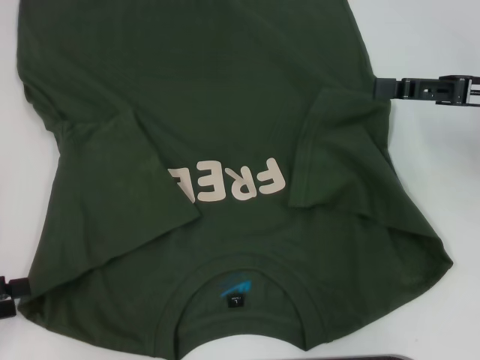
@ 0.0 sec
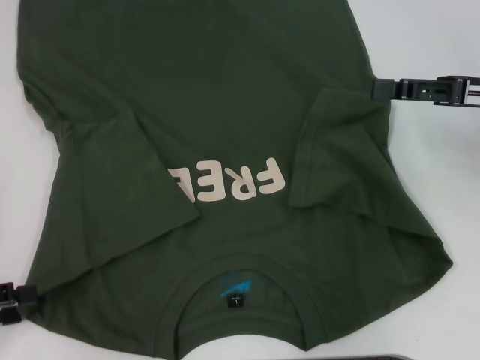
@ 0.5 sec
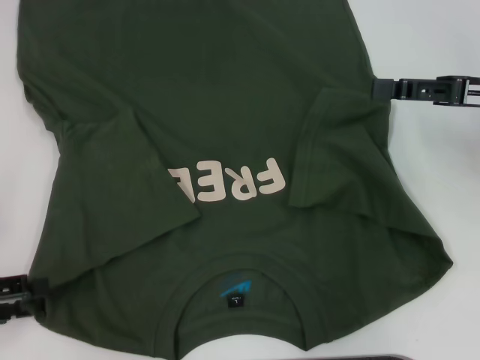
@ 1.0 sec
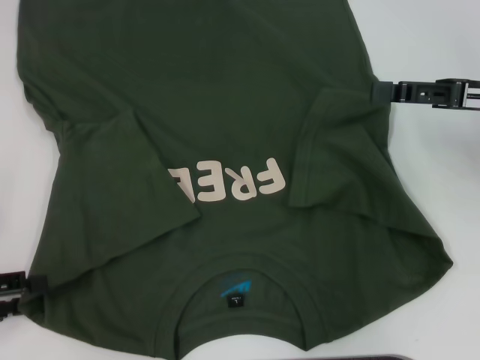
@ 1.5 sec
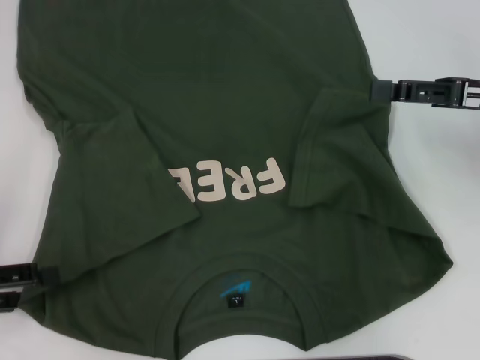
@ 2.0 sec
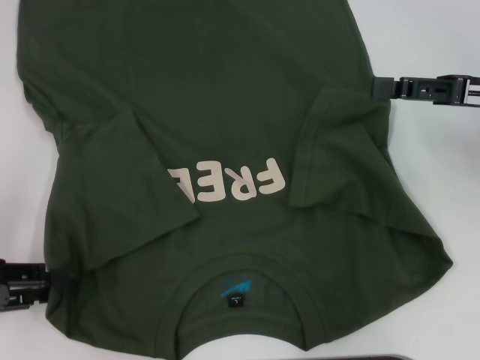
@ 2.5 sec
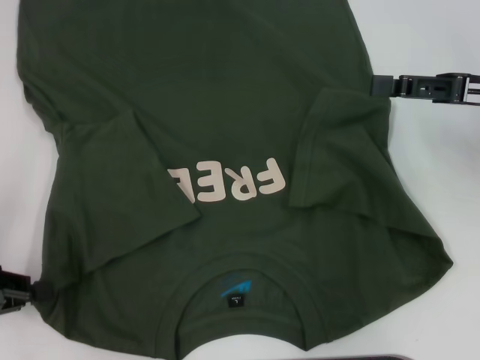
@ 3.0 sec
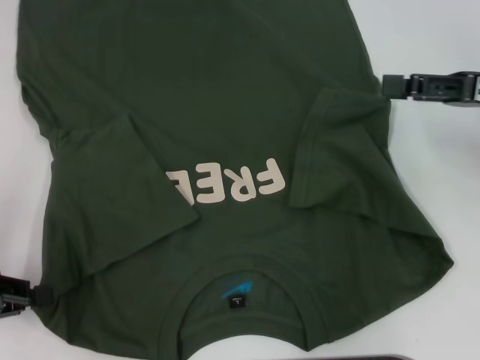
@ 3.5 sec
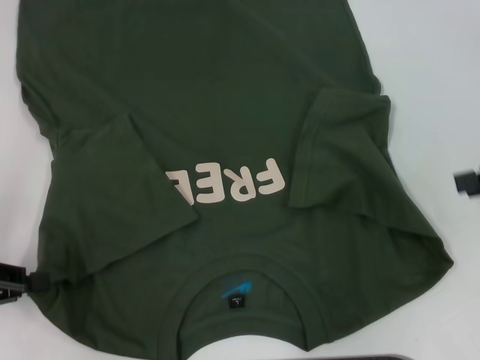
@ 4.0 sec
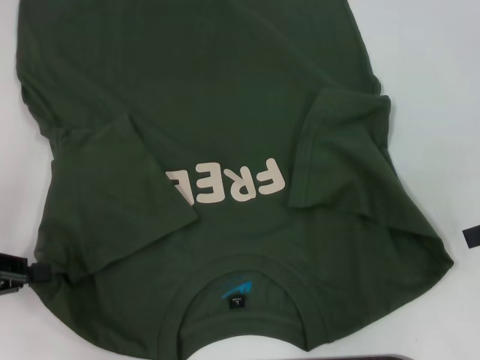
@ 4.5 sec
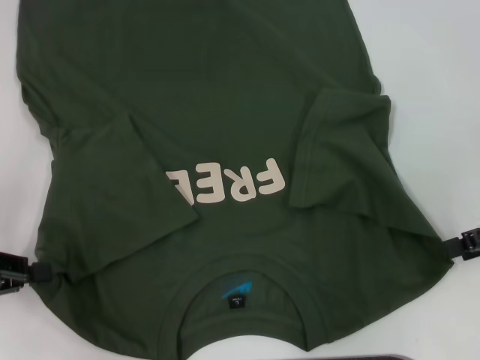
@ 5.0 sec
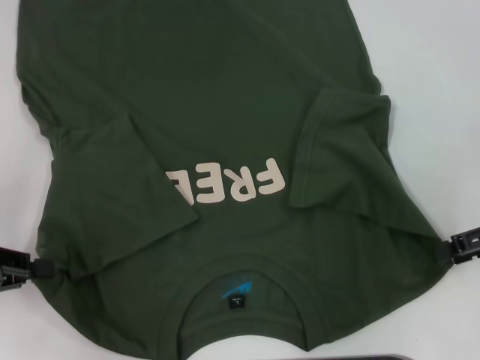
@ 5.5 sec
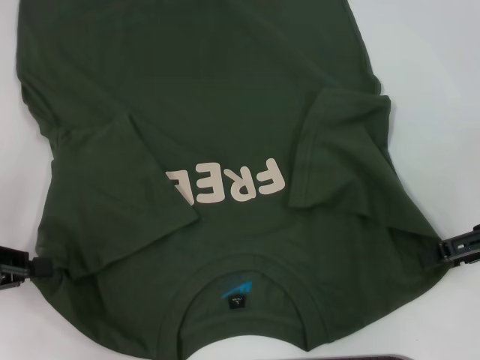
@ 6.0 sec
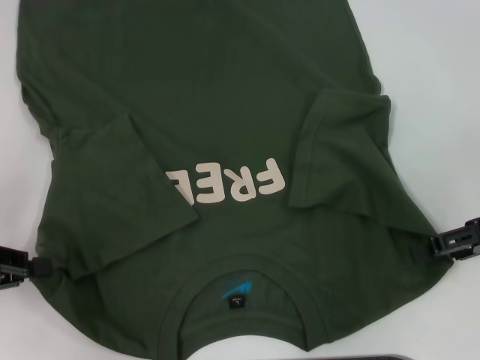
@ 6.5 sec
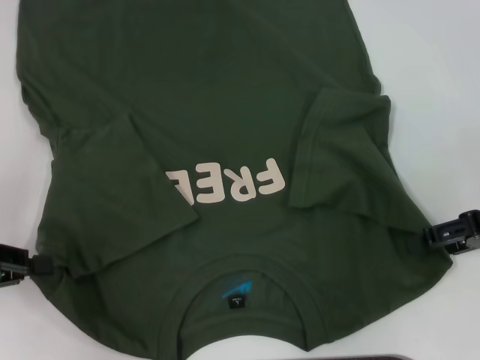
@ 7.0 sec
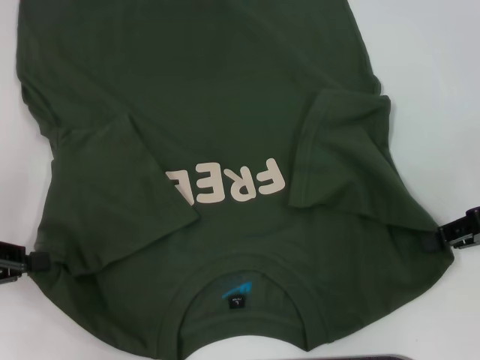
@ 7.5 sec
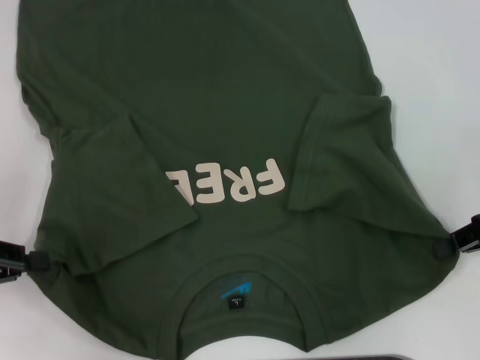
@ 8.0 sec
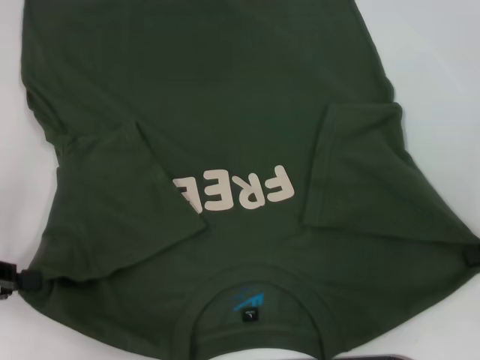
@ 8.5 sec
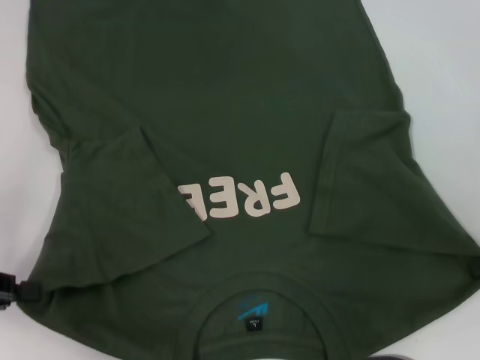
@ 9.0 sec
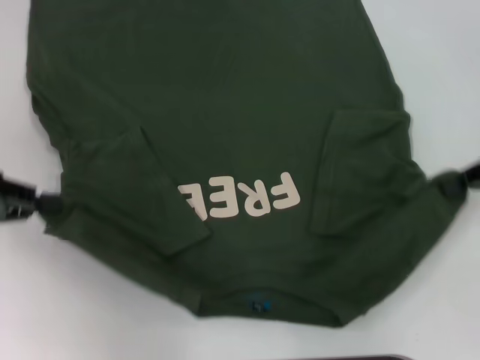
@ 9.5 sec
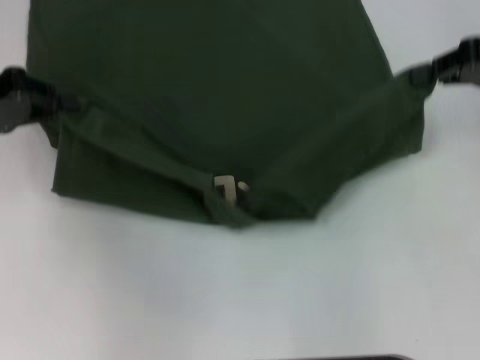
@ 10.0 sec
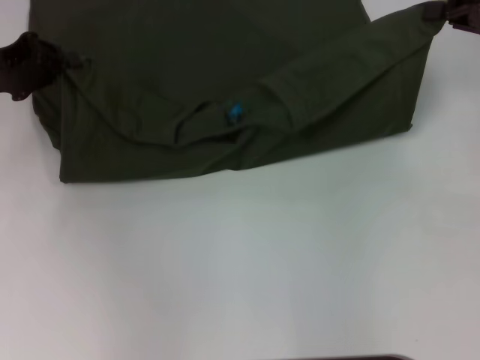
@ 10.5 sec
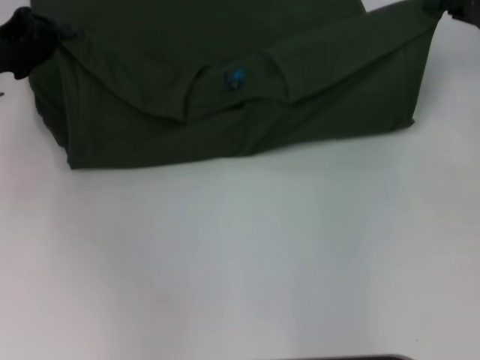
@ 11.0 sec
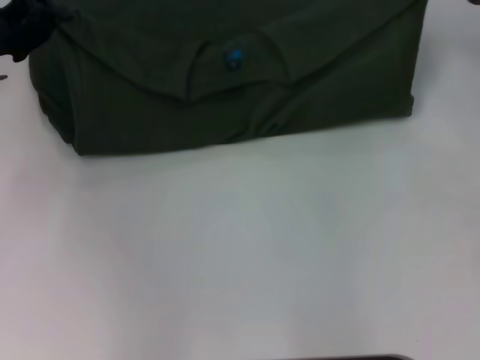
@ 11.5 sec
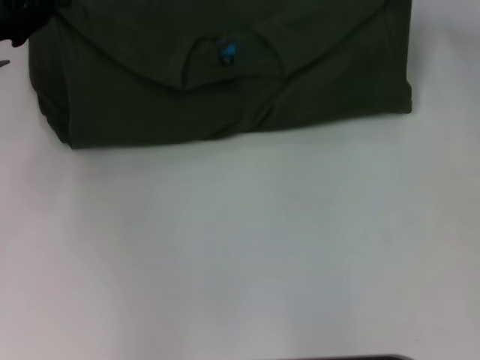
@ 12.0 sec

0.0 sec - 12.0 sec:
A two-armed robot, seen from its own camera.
Step, 0.0 sec - 5.0 sec: Grab the bottom left corner with your left hand.
Step, 5.5 sec - 7.0 sec: Grab the bottom right corner with your right hand.
0.0 sec - 2.0 sec: There are only small adjustments of the grippers.
2.0 sec - 4.0 sec: The left gripper closes. Meanwhile the right gripper goes some 5 cm to the right.
4.0 sec - 6.0 sec: The right gripper travels downward by approximately 5 cm.
6.0 sec - 8.0 sec: The right gripper closes up.
8.0 sec - 10.0 sec: The two grippers go some 15 cm forward and upward.
10.0 sec - 12.0 sec: The two grippers go some 5 cm forward.

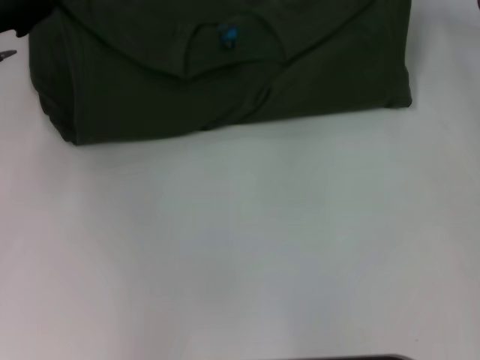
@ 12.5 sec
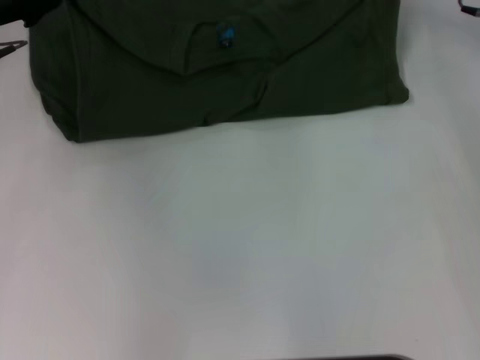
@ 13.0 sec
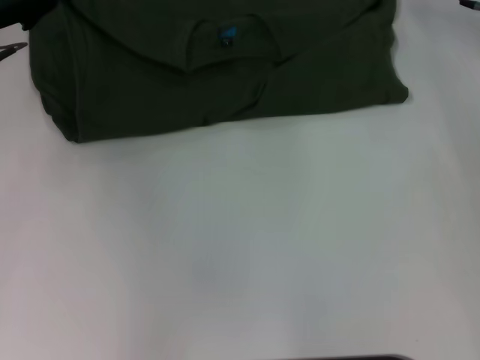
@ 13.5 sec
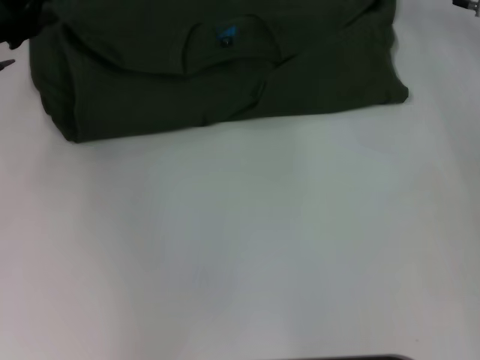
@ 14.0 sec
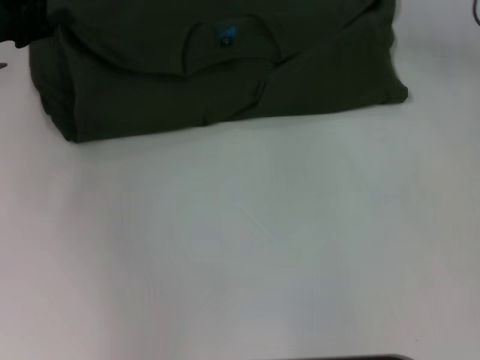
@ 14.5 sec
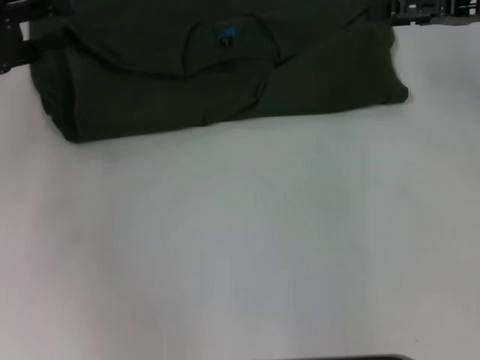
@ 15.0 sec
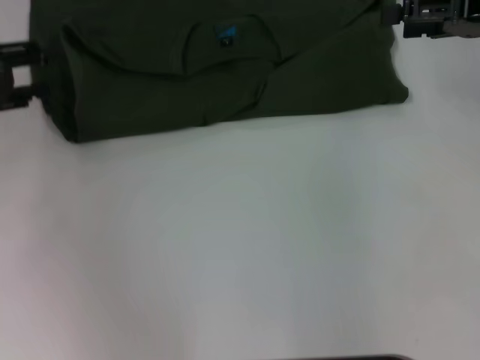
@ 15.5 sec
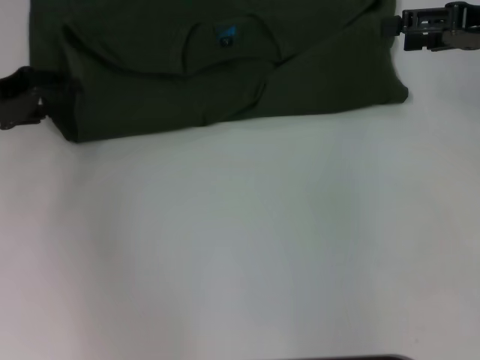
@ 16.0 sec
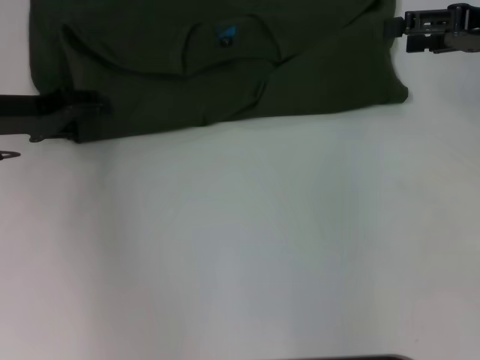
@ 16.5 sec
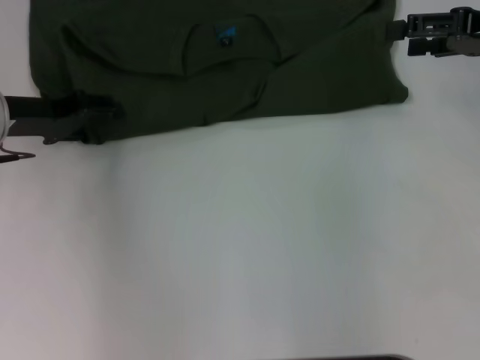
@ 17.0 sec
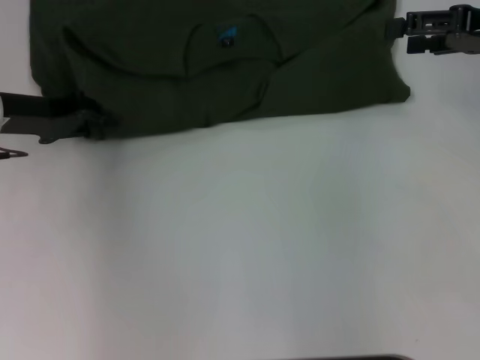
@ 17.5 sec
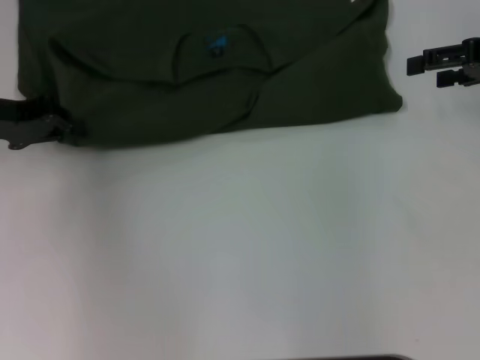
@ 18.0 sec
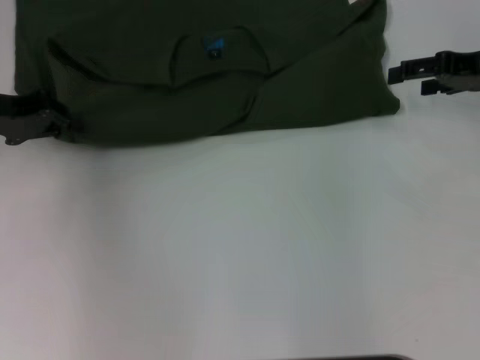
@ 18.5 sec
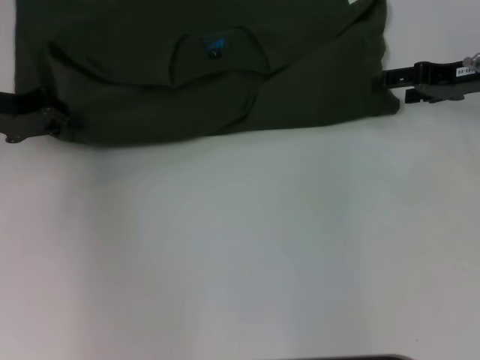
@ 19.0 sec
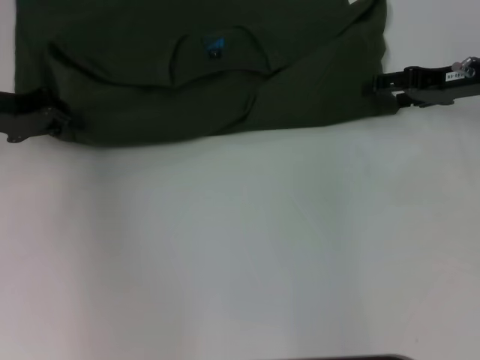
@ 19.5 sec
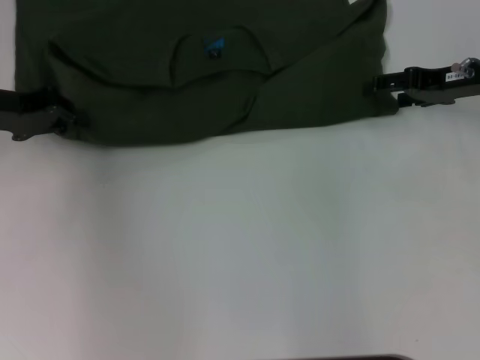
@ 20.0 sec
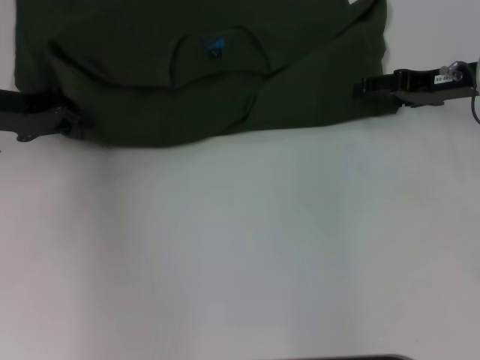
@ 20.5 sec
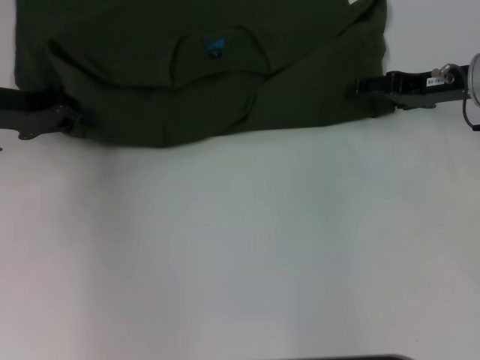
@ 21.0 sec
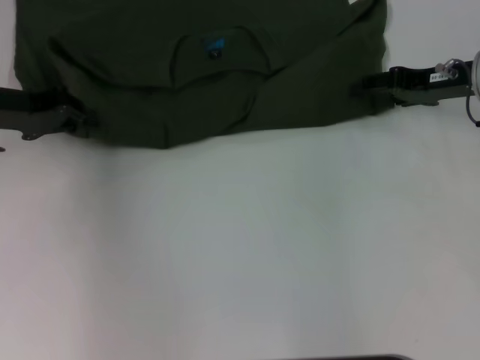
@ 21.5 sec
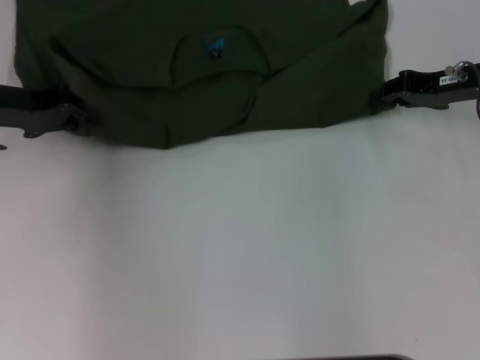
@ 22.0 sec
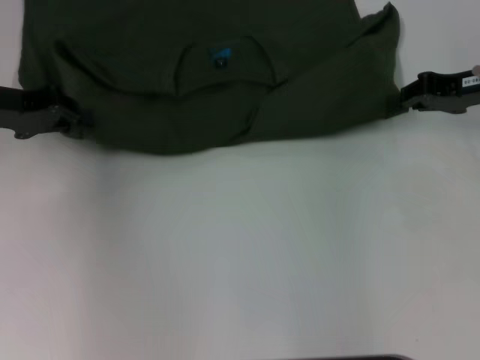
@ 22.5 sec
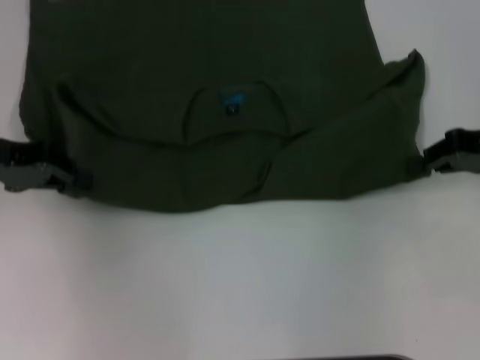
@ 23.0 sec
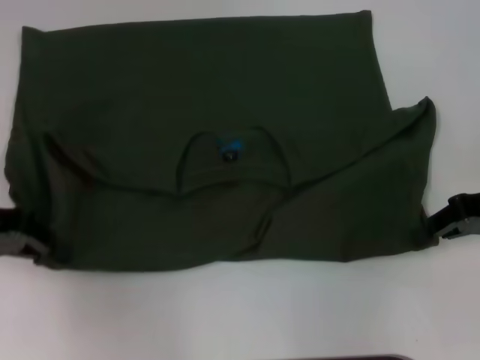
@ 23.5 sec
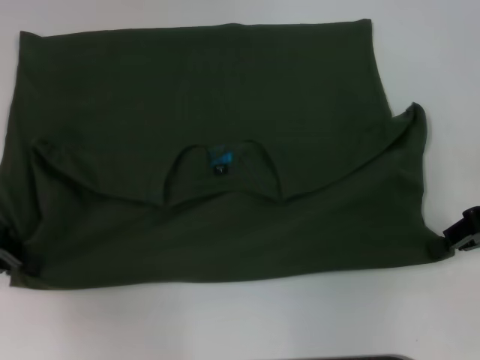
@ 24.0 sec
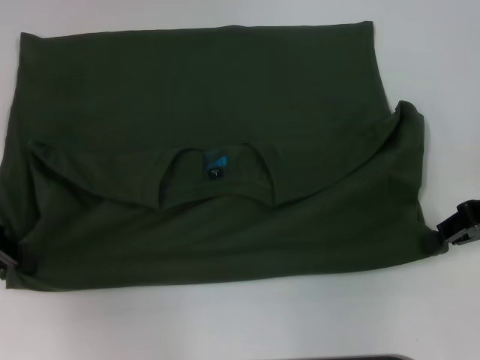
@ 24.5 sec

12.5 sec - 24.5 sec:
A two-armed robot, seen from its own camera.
Step, 14.5 sec - 24.0 sec: Pull the clothes with your left hand.
Step, 14.5 sec - 24.0 sec: Pull the clothes with your right hand.
12.5 sec - 14.5 sec: The right gripper opens up, while the left gripper opens.
14.5 sec - 16.5 sec: The right gripper heads backward, covering approximately 5 cm, and opens up, while the left gripper moves some 5 cm.
16.5 sec - 18.5 sec: The left gripper closes.
18.5 sec - 20.5 sec: The grippers make only small movements.
20.5 sec - 22.5 sec: The right gripper closes.
22.5 sec - 24.5 sec: The grippers both shift backward by about 10 cm.

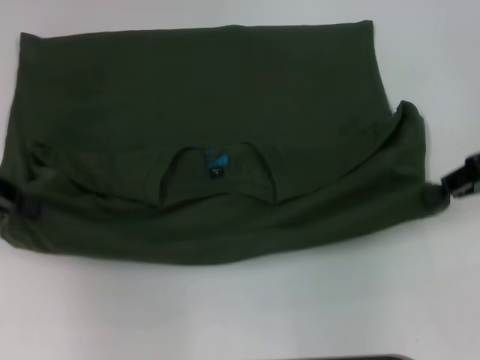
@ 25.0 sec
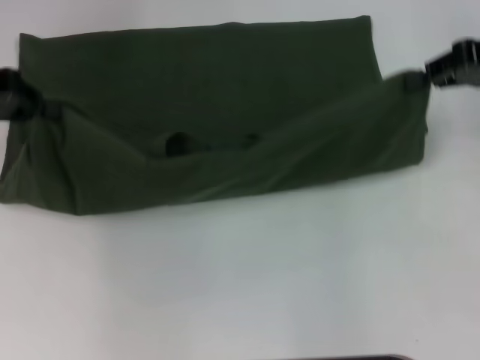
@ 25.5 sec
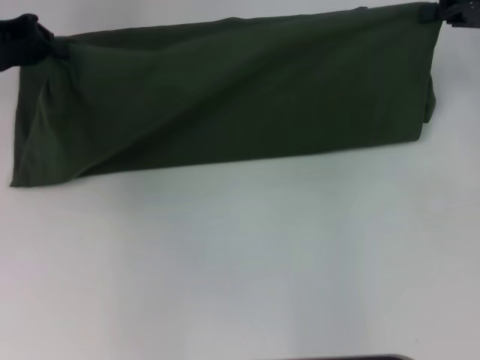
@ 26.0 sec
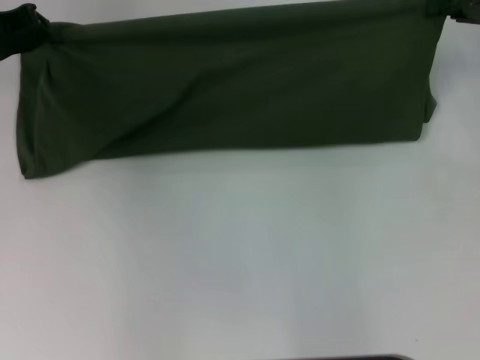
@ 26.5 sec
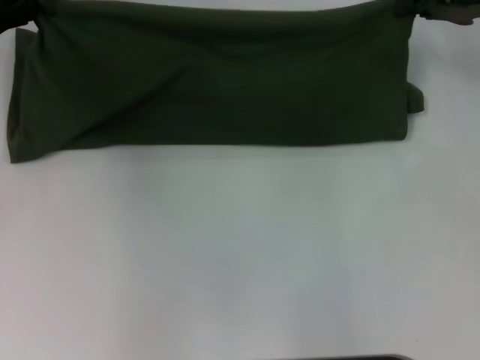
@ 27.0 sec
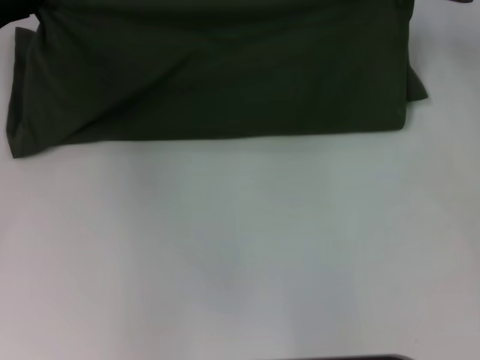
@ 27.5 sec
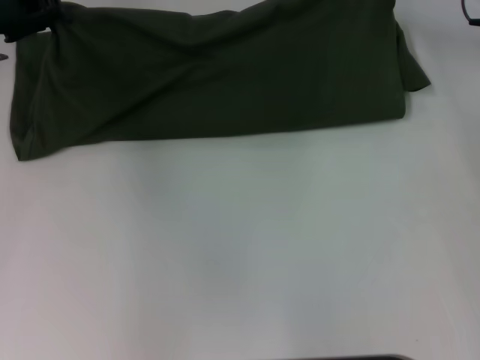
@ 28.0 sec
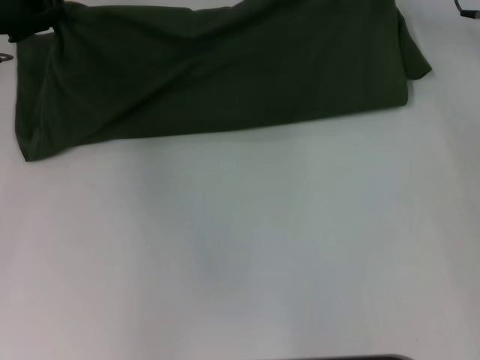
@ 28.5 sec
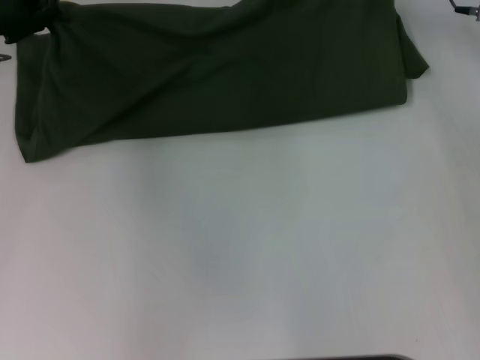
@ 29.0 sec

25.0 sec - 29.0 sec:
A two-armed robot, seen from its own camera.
25.0 sec - 27.0 sec: Both grippers move forward, roughly 10 cm.
27.0 sec - 29.0 sec: The right gripper moves to the left, about 5 cm.
